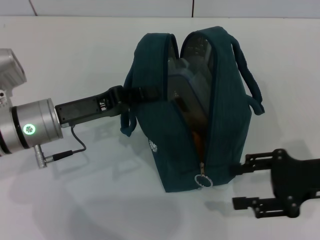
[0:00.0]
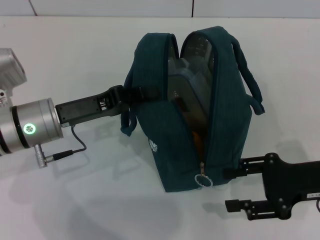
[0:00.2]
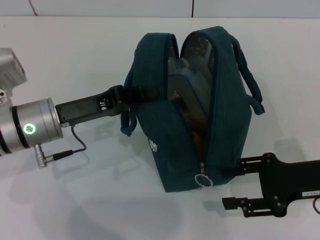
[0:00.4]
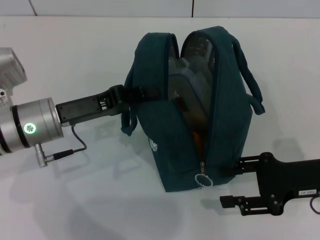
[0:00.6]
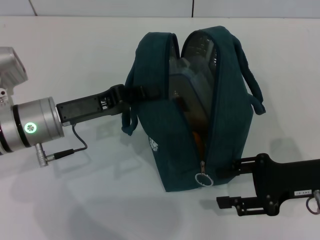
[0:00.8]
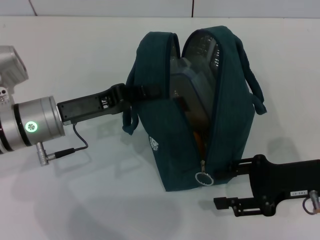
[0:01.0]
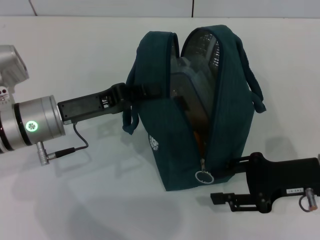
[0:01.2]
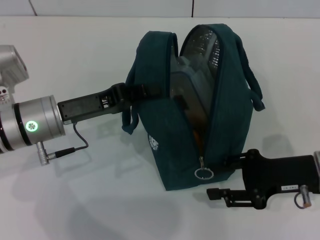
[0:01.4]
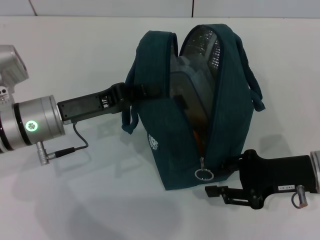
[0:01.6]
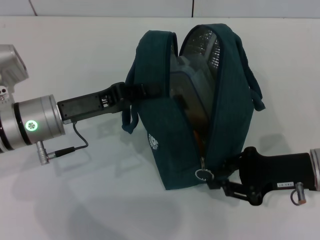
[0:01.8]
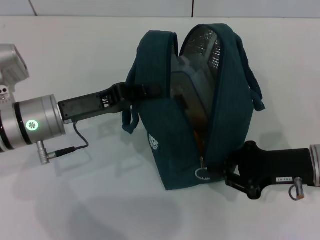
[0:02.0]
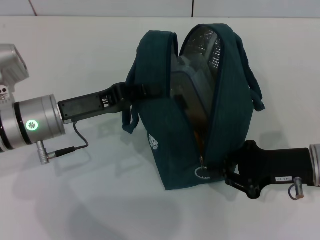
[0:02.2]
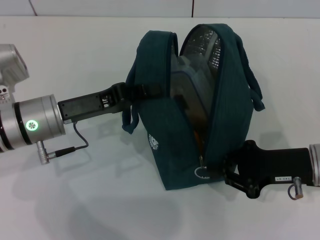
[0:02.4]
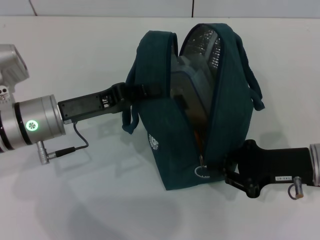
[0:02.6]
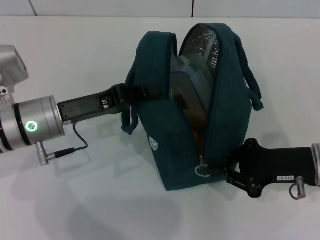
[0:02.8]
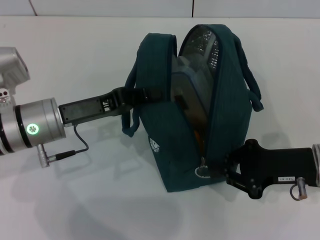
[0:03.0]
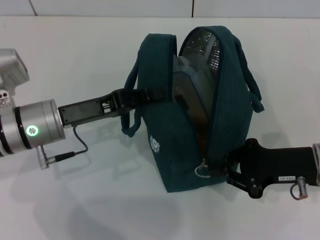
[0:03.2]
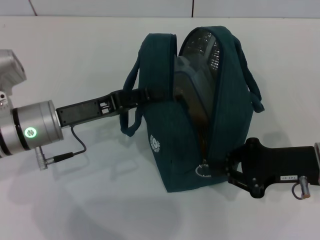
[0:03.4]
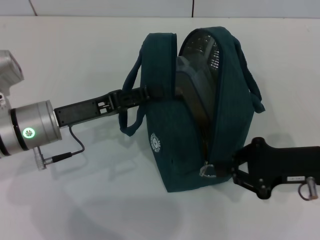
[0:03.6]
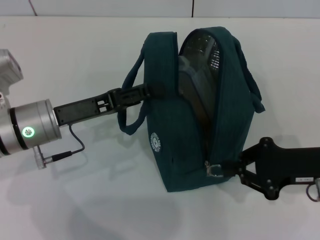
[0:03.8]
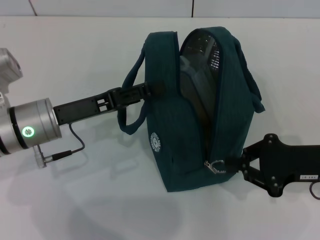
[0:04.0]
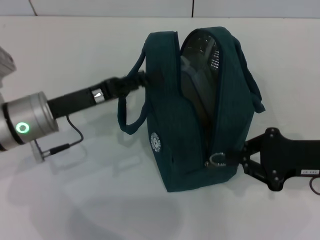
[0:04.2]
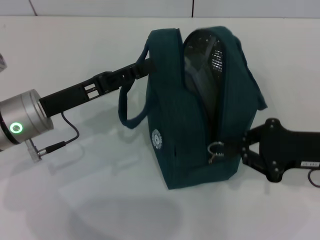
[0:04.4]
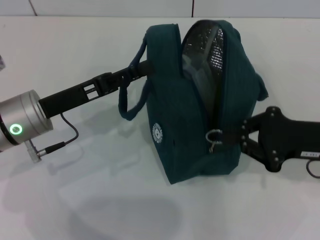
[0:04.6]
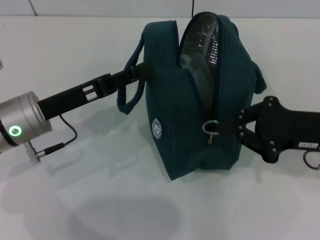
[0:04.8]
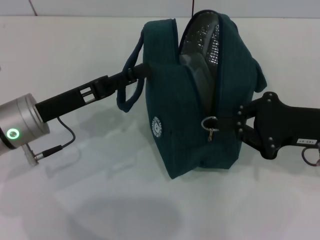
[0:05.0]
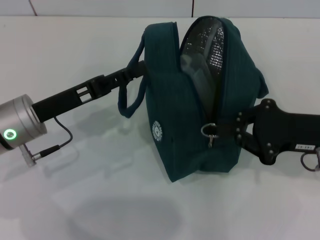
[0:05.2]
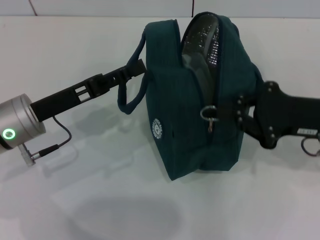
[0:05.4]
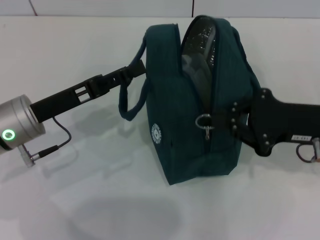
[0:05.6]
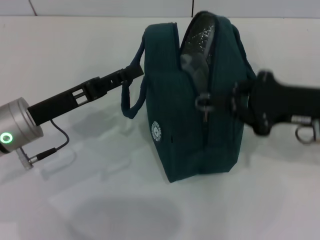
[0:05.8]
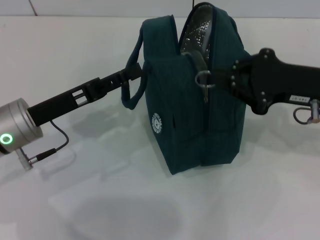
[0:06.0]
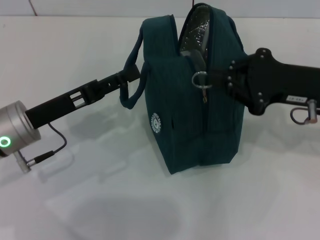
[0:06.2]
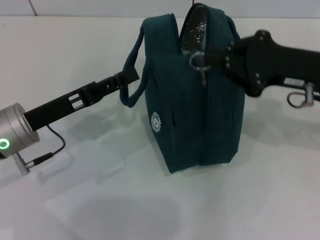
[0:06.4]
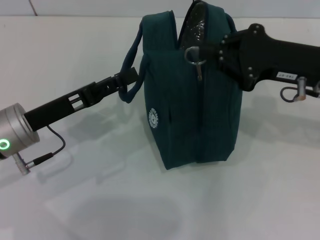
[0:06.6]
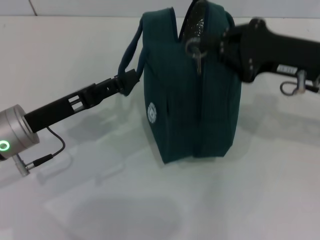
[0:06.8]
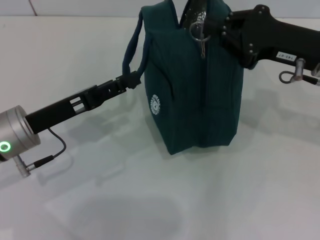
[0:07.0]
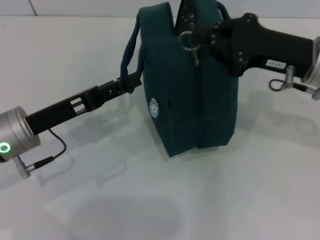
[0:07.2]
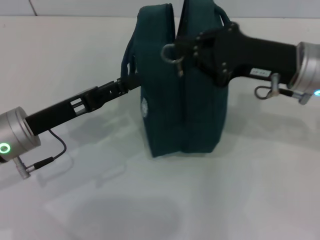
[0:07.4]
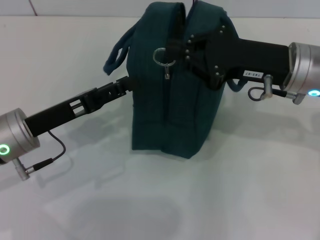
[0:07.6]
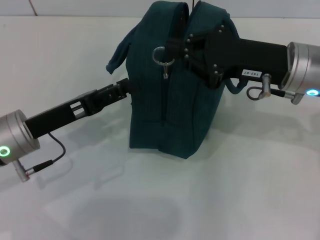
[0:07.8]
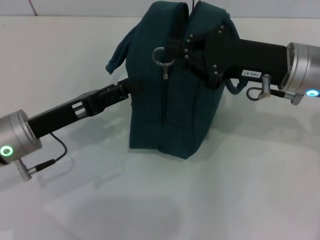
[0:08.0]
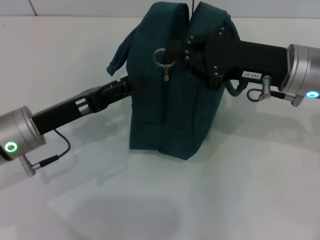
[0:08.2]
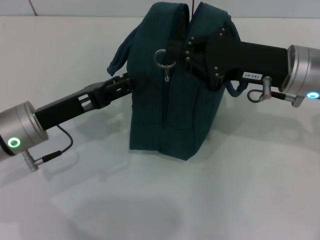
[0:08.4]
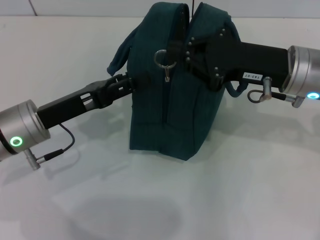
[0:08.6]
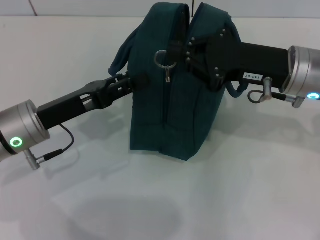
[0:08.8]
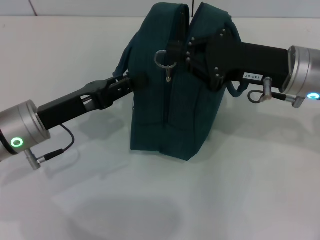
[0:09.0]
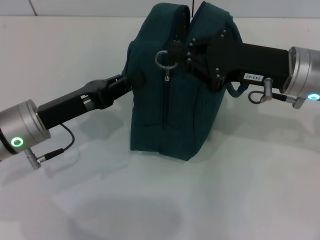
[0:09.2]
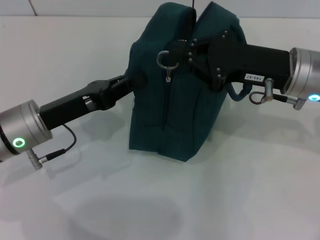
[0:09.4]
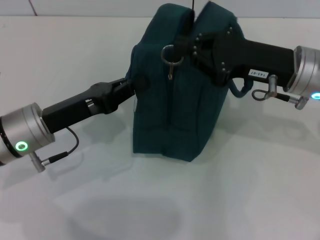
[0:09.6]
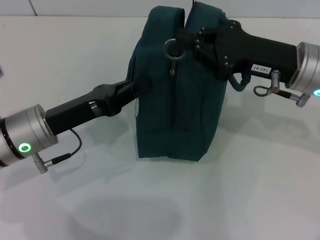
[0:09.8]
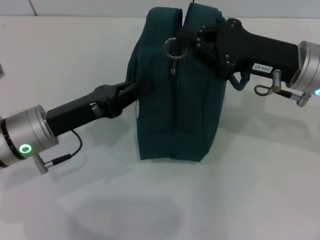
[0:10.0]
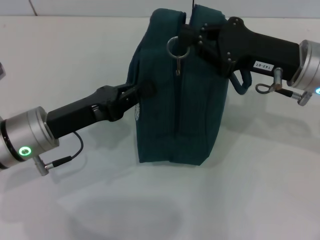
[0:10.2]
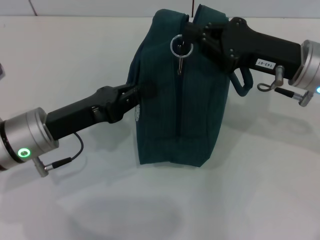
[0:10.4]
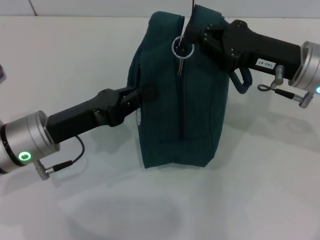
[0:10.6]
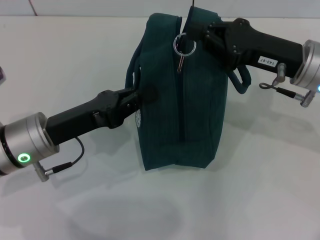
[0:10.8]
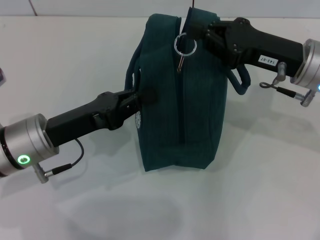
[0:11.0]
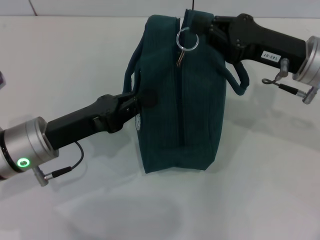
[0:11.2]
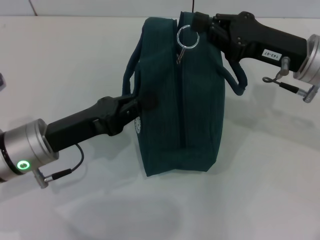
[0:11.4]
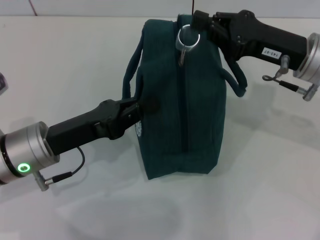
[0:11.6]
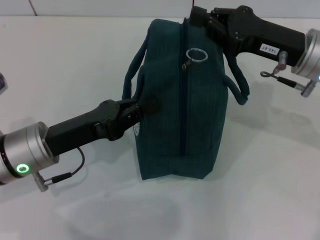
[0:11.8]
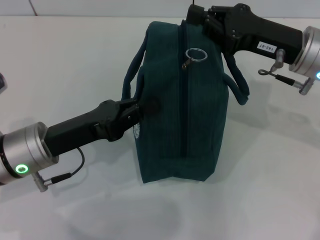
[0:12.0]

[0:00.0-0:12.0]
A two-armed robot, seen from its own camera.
Step, 0:00.0 to 0:07.2: Hold the lunch bag with your left hand.
0:00.0 to 0:01.6: The grippers move only a little.
0:01.6 to 0:03.0: The right gripper closes up.
0:03.0 to 0:04.4: The left gripper opens.
0:04.4 to 0:06.0: The right gripper moves upward, roughly 5 cm.
0:06.0 to 0:07.6: The right gripper goes roughly 5 cm to the left.
0:07.6 to 0:09.0: The left gripper closes its fingers.
0:09.0 to 0:10.4: The left gripper closes its fingers.

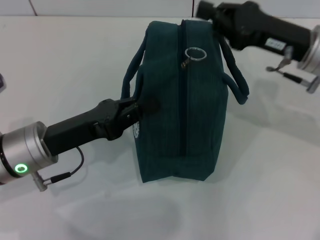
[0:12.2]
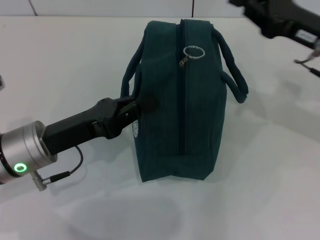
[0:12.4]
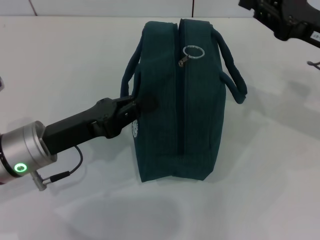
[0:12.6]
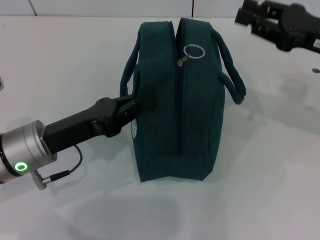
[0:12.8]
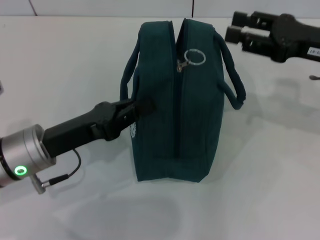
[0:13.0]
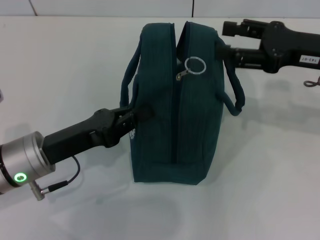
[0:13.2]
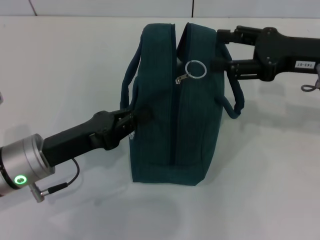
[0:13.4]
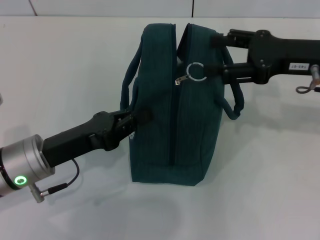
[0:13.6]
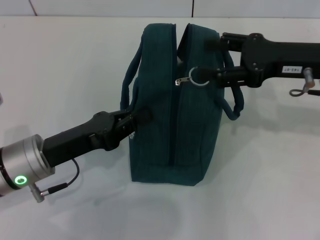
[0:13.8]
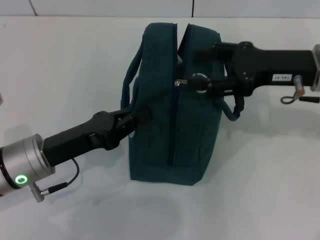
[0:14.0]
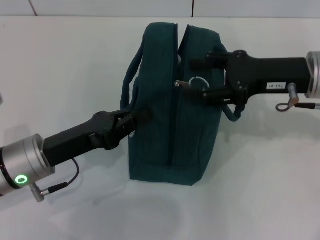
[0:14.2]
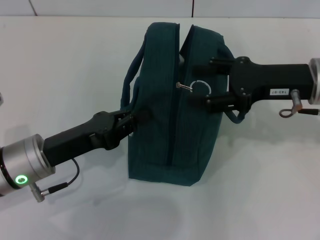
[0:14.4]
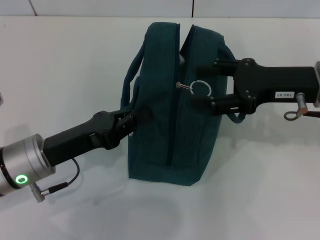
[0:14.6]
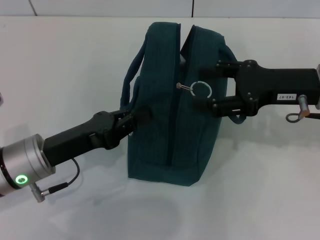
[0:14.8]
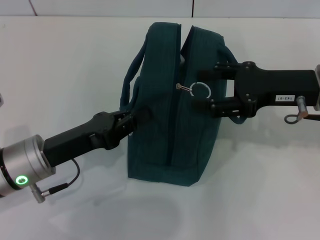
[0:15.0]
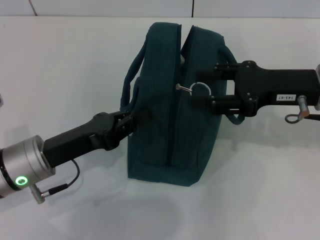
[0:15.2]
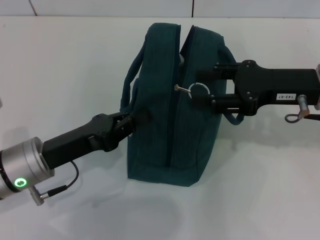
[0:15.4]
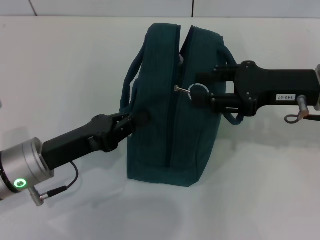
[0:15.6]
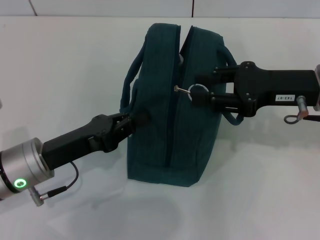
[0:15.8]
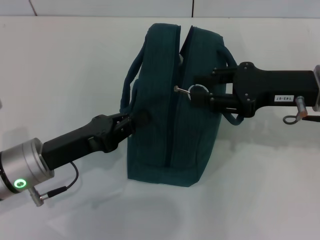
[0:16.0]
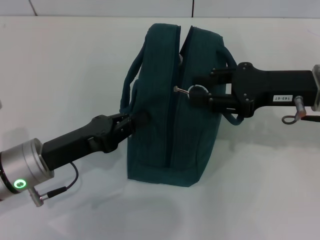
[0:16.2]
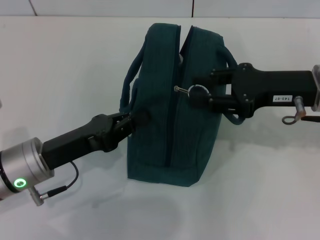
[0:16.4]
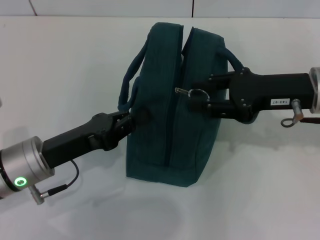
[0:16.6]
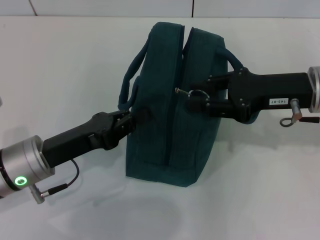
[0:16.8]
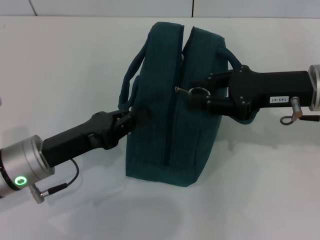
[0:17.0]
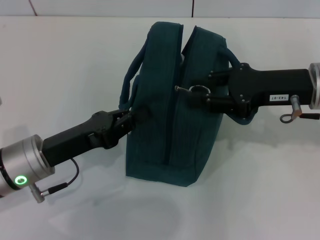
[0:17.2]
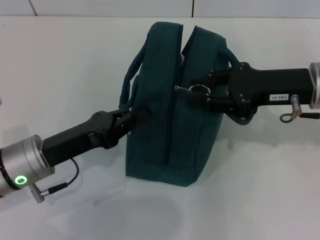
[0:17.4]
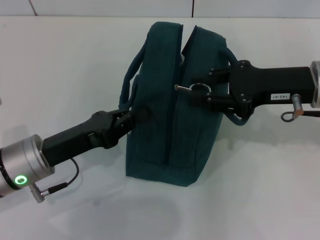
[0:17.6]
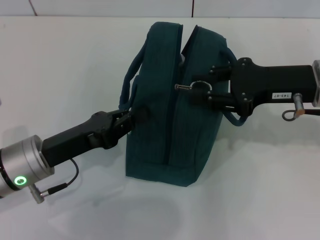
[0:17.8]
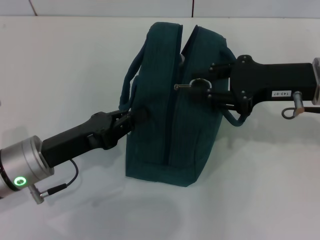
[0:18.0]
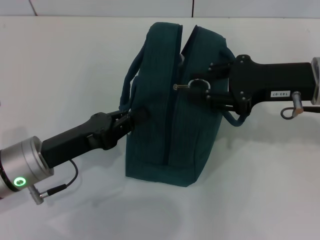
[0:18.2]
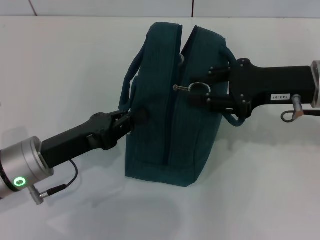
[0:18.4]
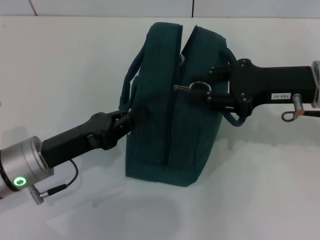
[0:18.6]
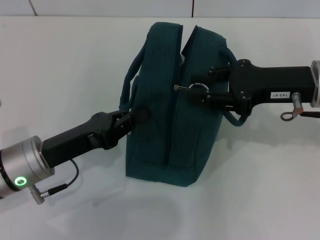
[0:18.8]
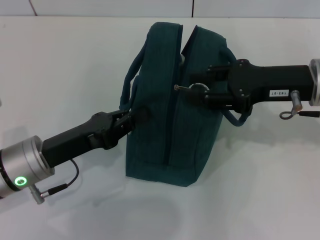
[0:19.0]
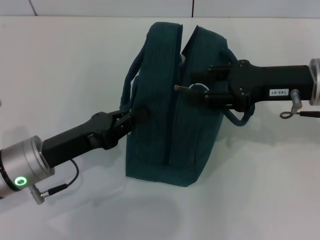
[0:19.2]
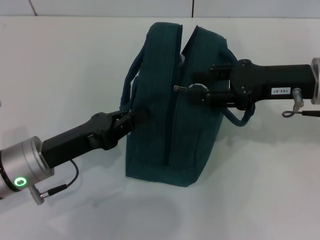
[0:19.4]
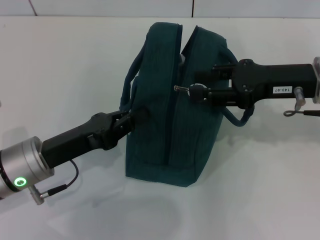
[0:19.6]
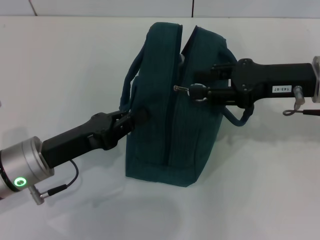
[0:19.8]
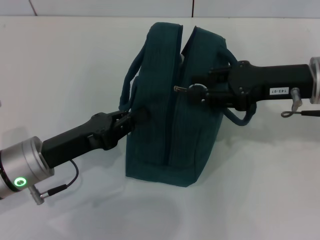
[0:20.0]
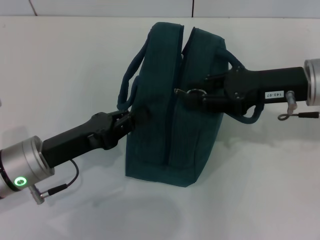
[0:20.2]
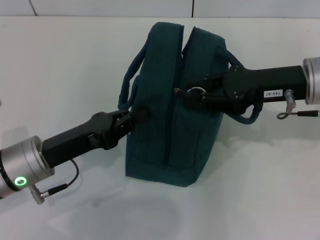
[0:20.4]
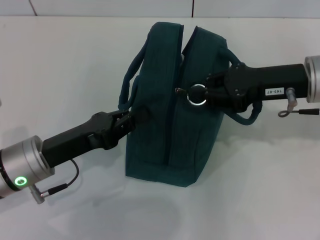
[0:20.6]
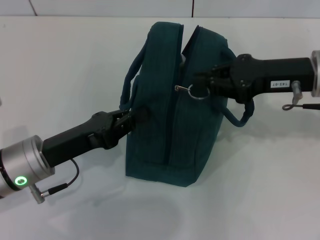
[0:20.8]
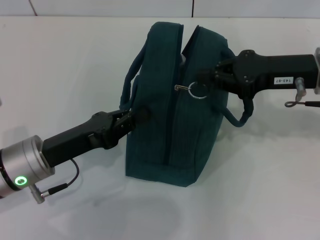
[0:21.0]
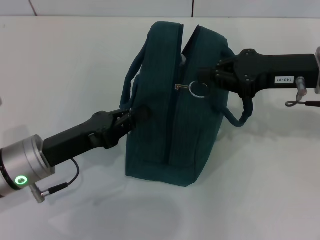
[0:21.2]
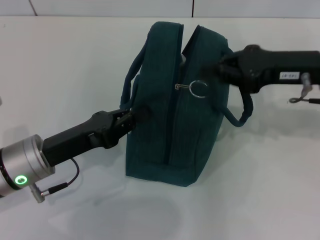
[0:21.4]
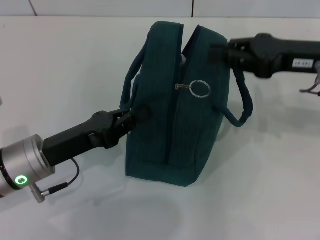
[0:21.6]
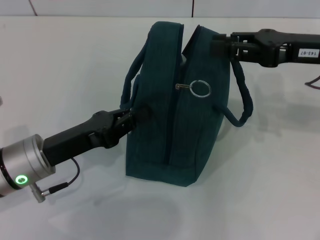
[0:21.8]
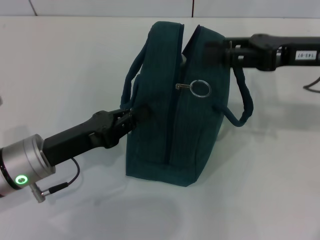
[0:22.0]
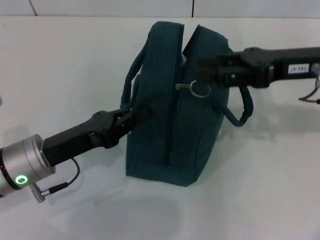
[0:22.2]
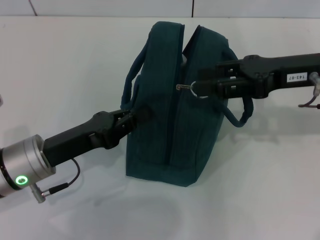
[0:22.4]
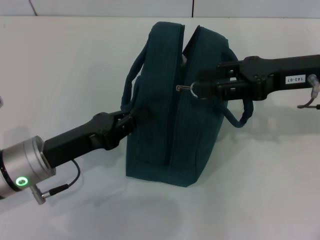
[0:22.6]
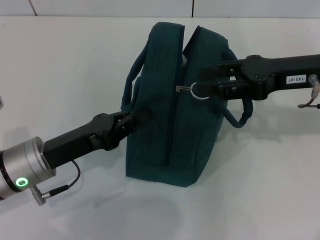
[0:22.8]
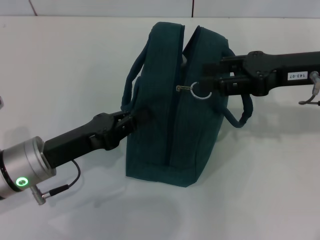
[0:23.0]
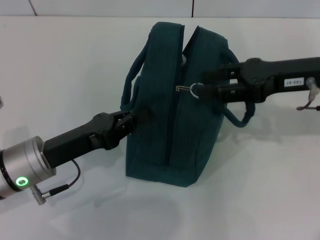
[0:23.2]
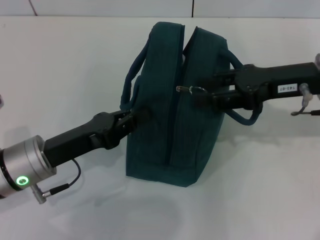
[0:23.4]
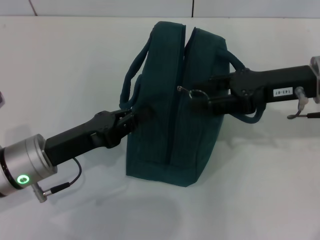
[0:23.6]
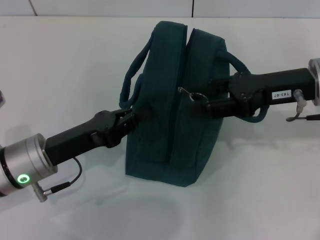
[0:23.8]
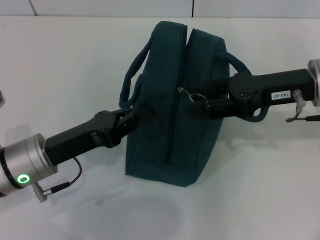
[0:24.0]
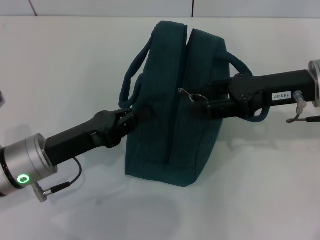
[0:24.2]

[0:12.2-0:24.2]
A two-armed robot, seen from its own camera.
0:12.2 to 0:13.8: The right gripper opens up.
0:13.8 to 0:15.2: There are only small adjustments of the grippers.
0:15.2 to 0:16.6: The right gripper closes its fingers.
0:16.6 to 0:19.8: There are only small adjustments of the grippers.
0:19.8 to 0:21.2: The right gripper closes its fingers.
0:21.2 to 0:22.6: The right gripper opens its fingers.
0:22.6 to 0:24.2: The grippers move only a little.
